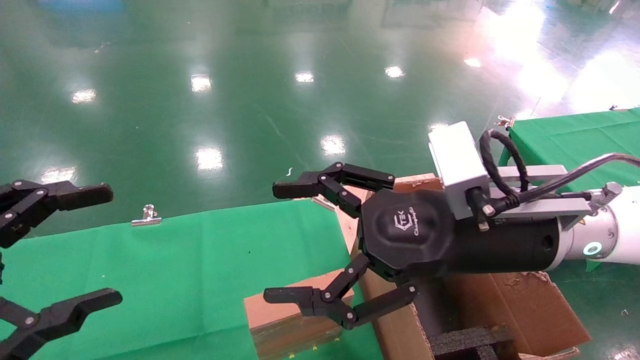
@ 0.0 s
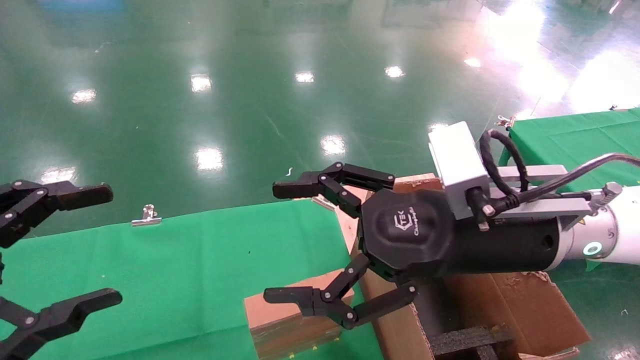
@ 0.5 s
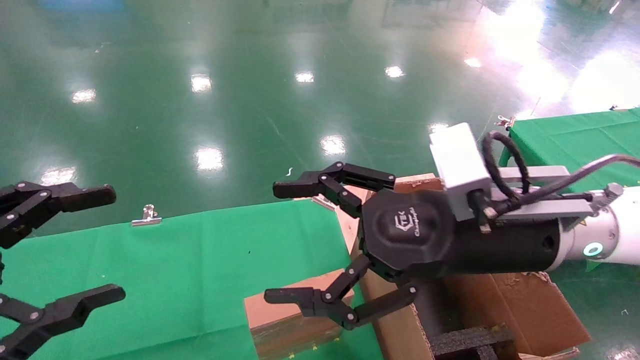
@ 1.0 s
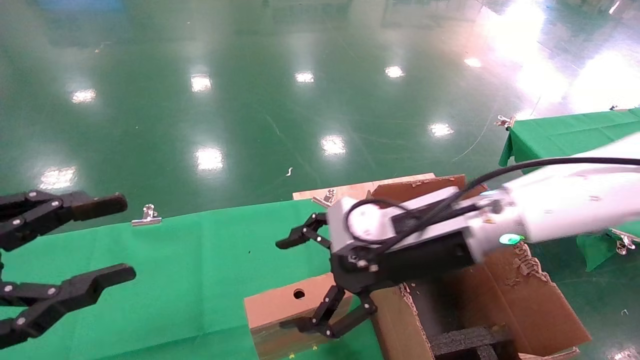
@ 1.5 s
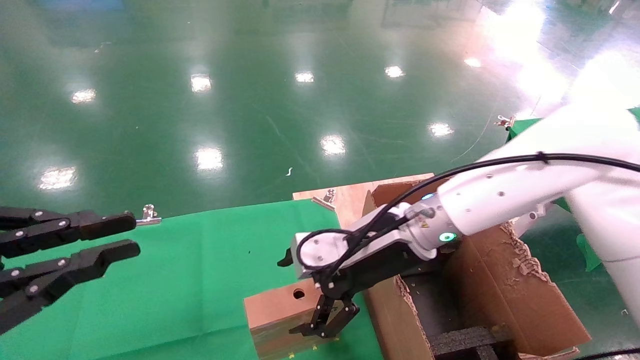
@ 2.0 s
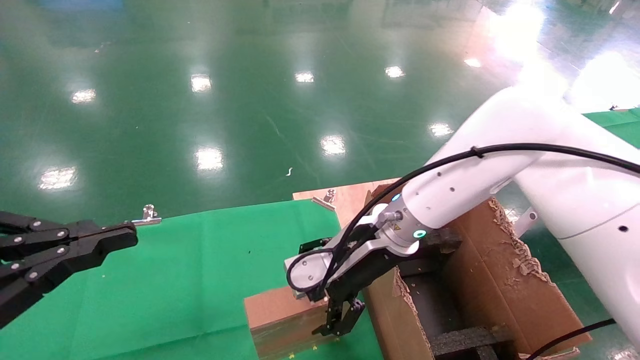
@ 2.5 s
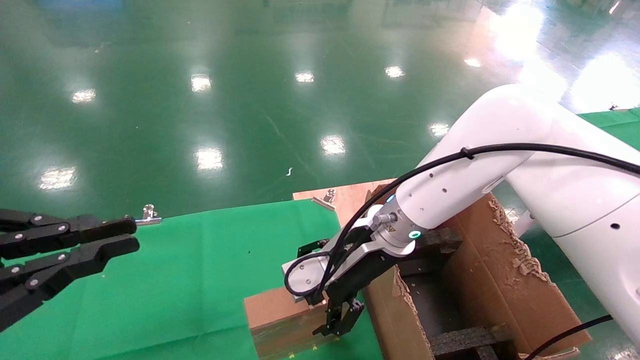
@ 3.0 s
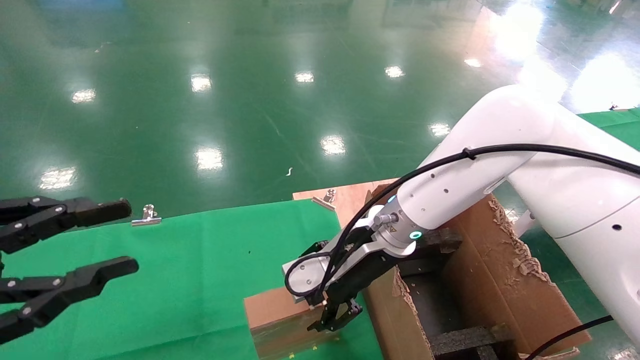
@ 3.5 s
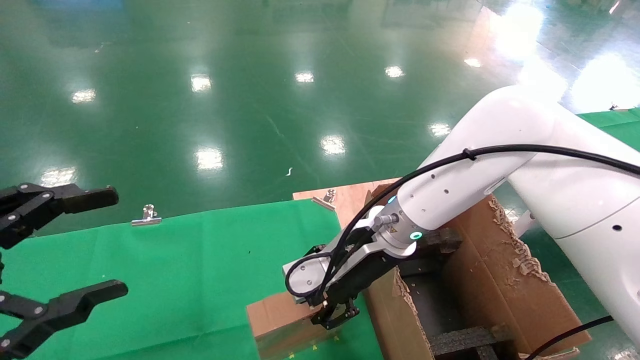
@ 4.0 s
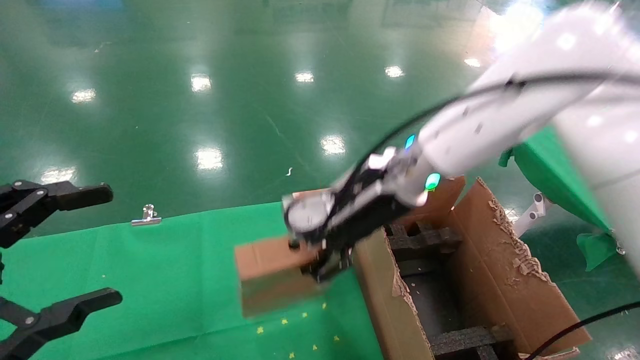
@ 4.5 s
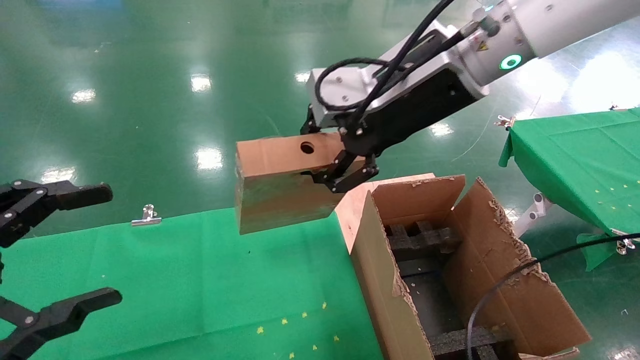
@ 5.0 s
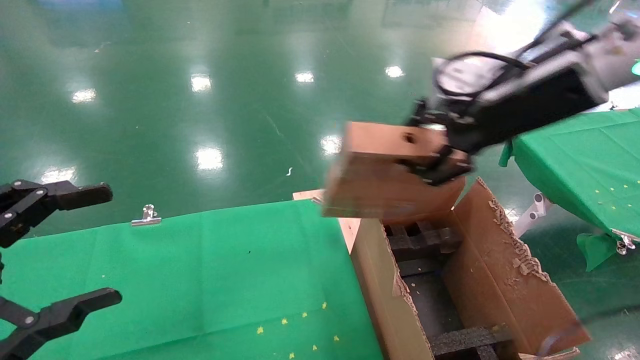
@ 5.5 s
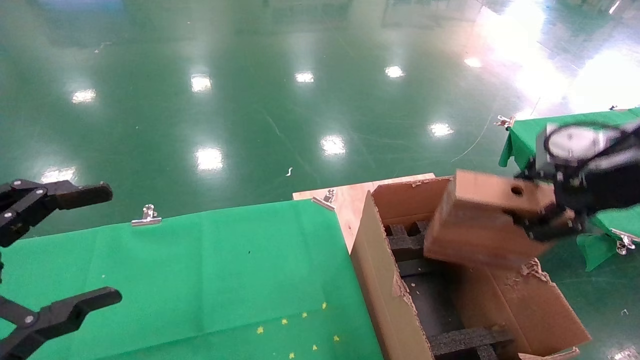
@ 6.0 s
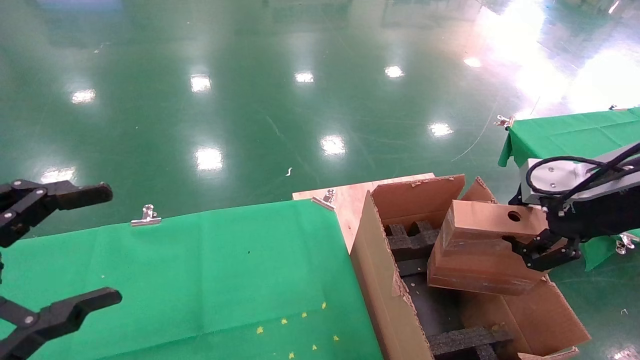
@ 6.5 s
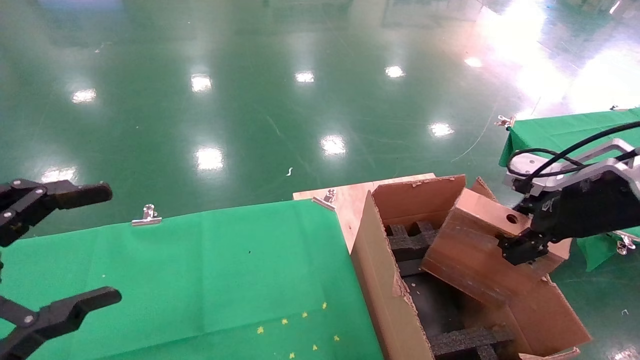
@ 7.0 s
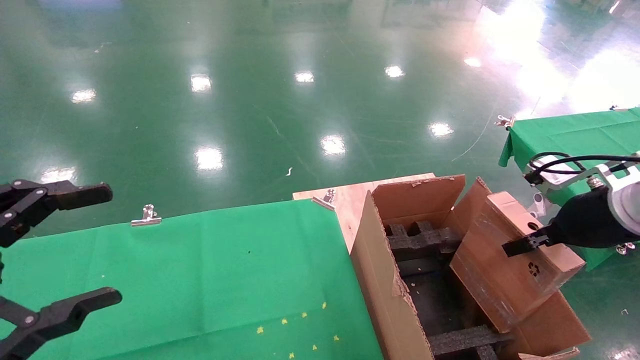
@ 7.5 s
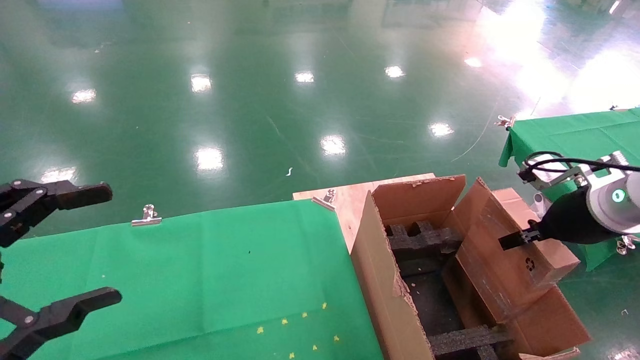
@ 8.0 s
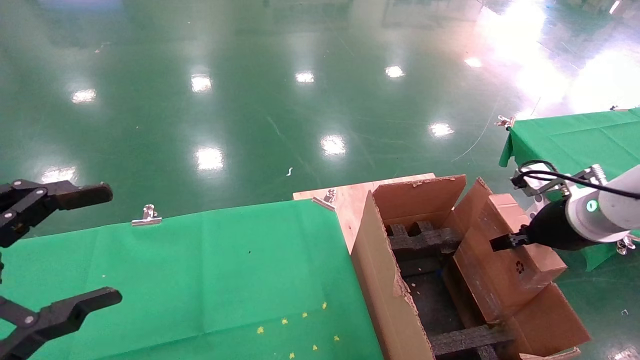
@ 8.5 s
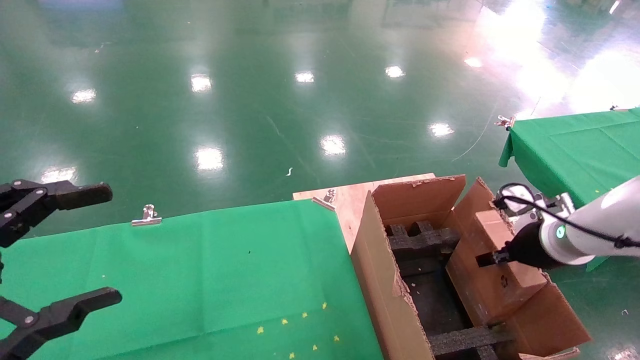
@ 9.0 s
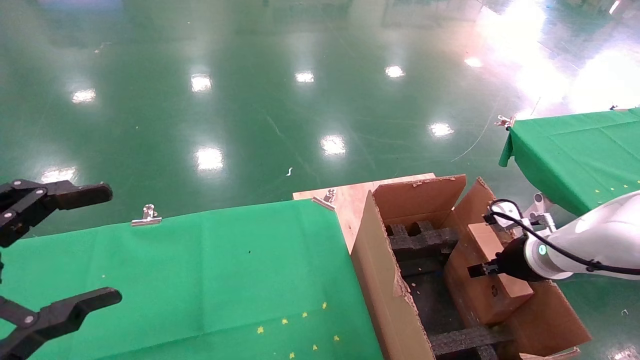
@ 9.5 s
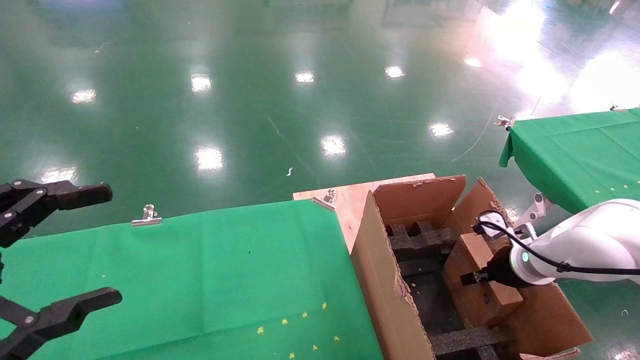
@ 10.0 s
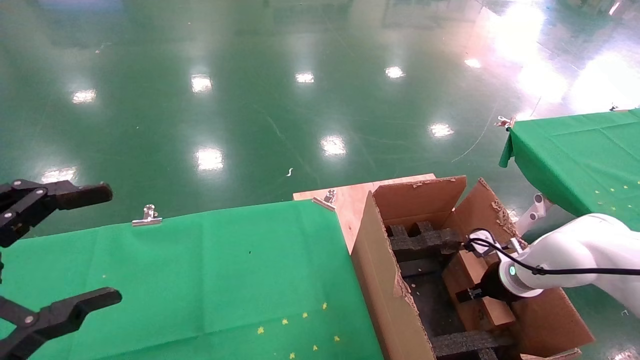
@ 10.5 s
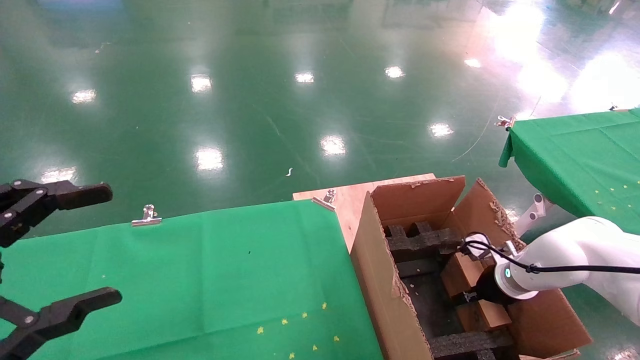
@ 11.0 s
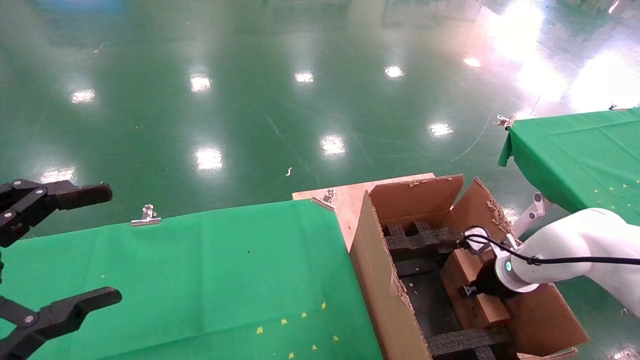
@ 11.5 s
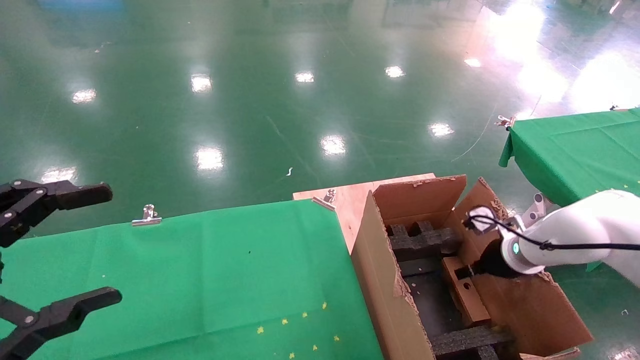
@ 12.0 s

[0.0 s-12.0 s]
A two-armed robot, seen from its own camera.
Task of the whole recording: using a robotic arm to pick up a cardboard box and palace it the carton.
Step, 1.5 to 3.5 s: Pick up the mouse and the power cord paper box.
0.0 to 2.0 s: The right gripper heads forward, to the left and downward, covering roughly 15 cm; the left gripper closes up.
2.0 to 4.0 s: The right gripper closes; the left gripper opens up.
4.0 to 6.0 s: The right gripper moves to the right, upward and backward, some 30 cm.
6.0 to 8.0 s: The right gripper travels downward and forward by some 10 cm.
8.0 to 10.0 s: The right gripper moves downward and forward, about 15 cm.
10.0 to 12.0 s: The right gripper opens its fingers.

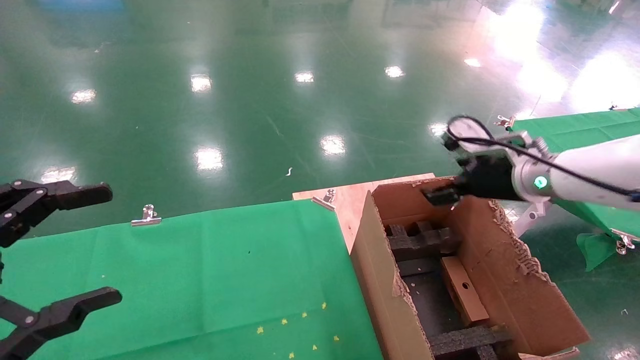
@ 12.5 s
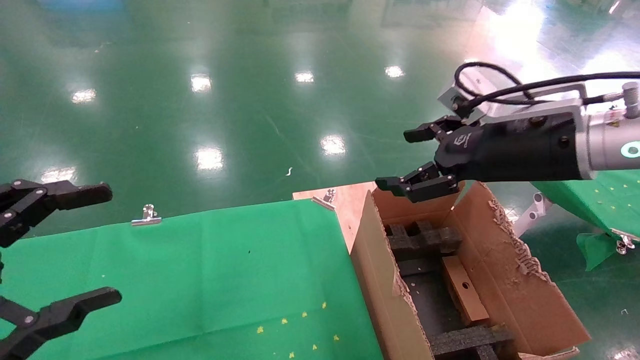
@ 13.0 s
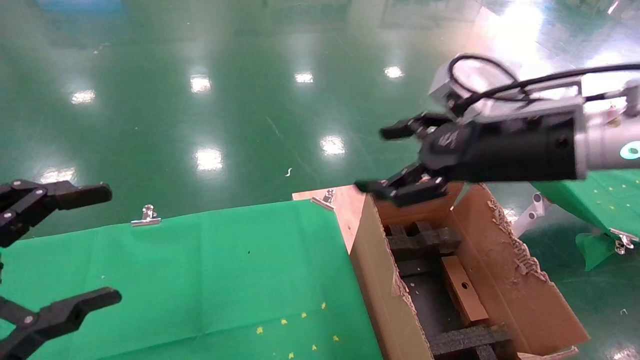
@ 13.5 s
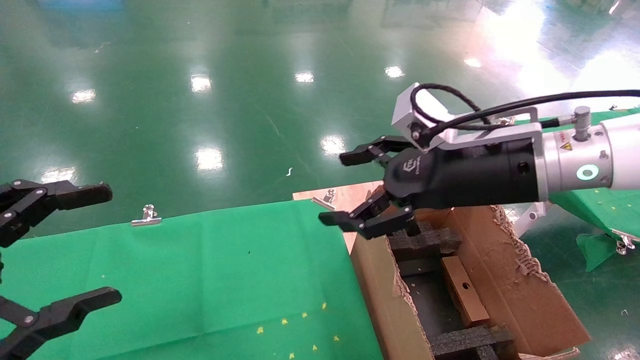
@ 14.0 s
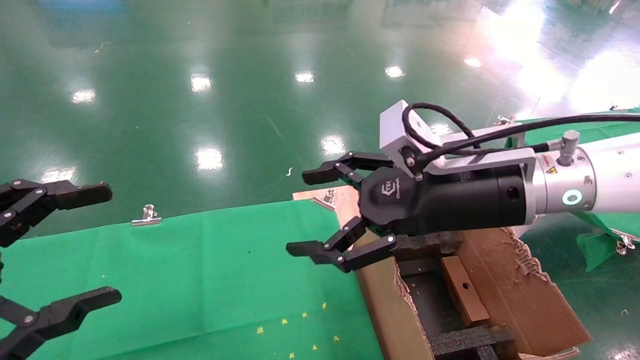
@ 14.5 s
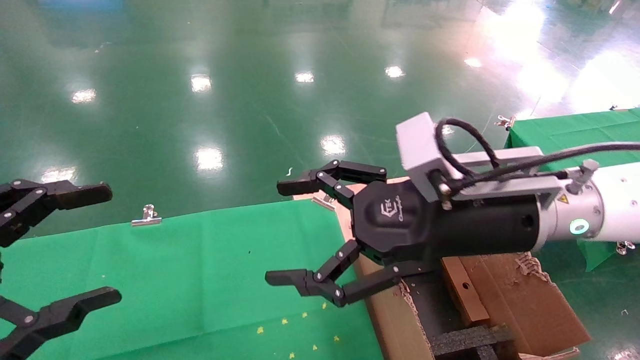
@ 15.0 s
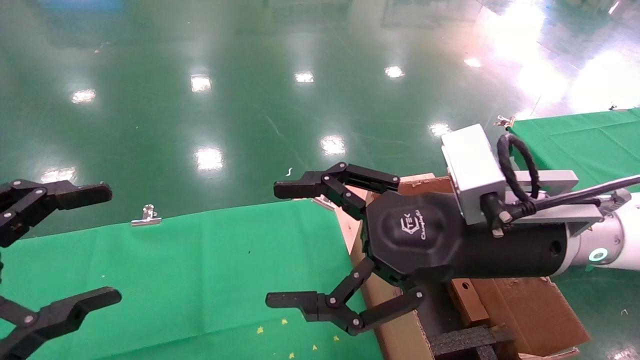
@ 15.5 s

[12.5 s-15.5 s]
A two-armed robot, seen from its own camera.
Task of the whole recording: using a robotic arm to pick up a cardboard box and palace it the carton.
12.5 to 14.0 s: The right gripper shifts some 15 cm to the left, backward and upward.
14.0 to 15.5 s: The right gripper changes place by approximately 5 cm.
